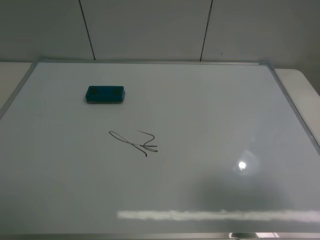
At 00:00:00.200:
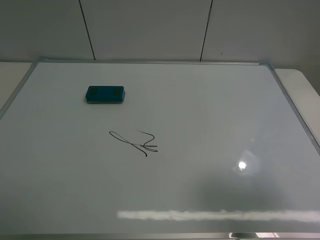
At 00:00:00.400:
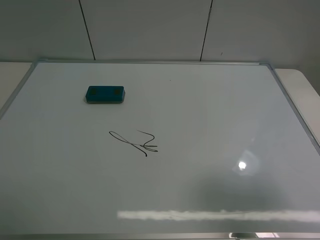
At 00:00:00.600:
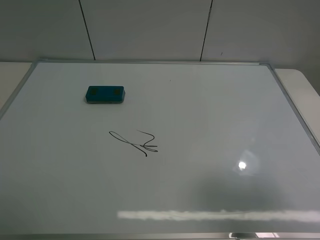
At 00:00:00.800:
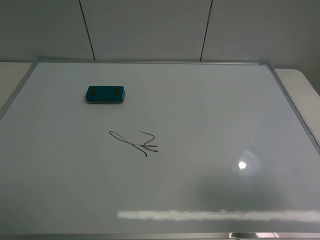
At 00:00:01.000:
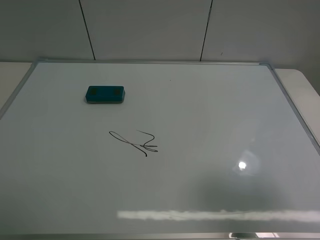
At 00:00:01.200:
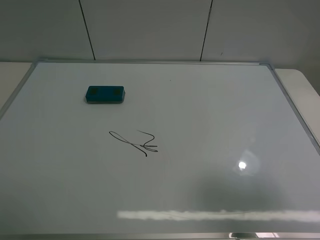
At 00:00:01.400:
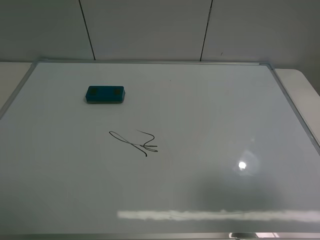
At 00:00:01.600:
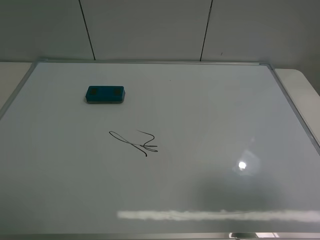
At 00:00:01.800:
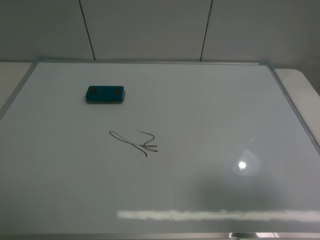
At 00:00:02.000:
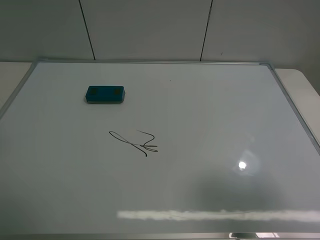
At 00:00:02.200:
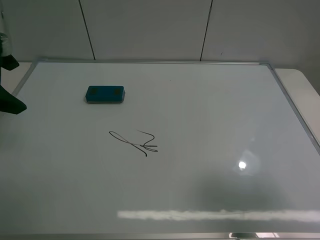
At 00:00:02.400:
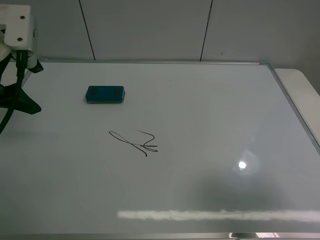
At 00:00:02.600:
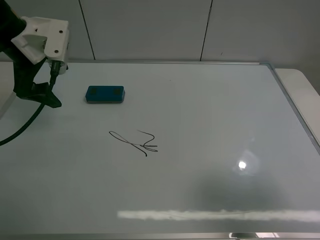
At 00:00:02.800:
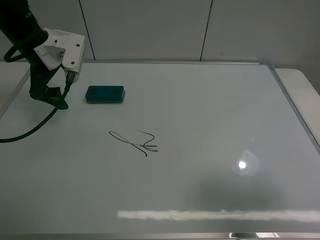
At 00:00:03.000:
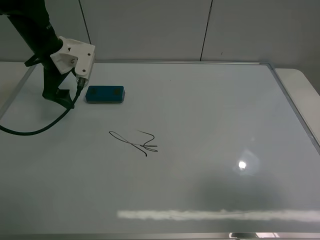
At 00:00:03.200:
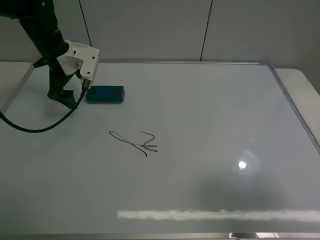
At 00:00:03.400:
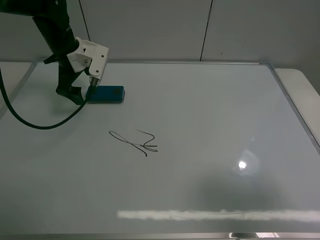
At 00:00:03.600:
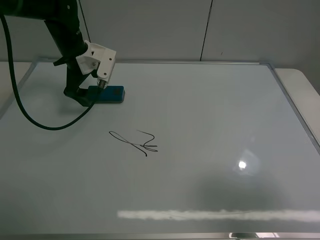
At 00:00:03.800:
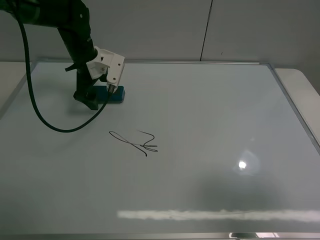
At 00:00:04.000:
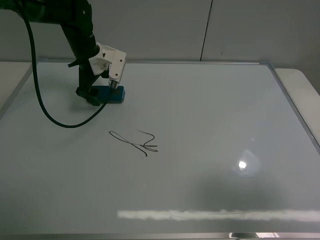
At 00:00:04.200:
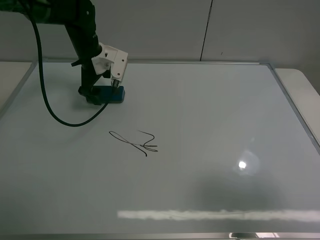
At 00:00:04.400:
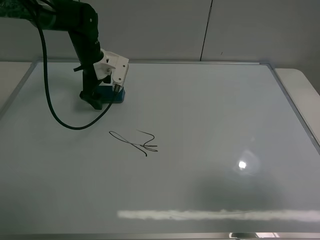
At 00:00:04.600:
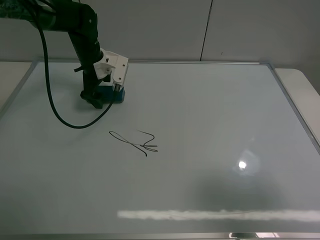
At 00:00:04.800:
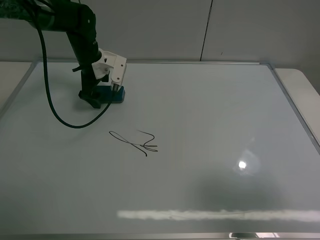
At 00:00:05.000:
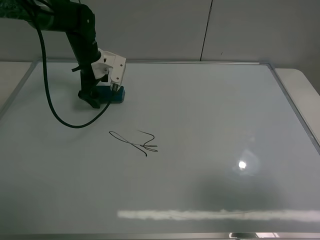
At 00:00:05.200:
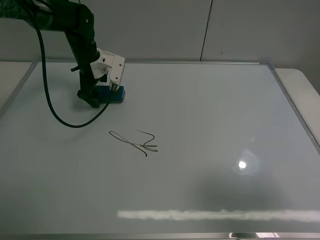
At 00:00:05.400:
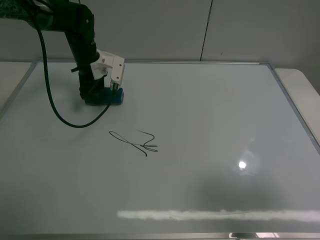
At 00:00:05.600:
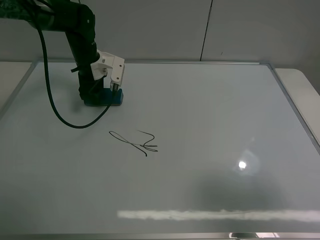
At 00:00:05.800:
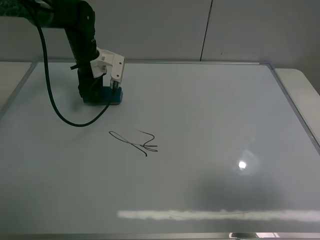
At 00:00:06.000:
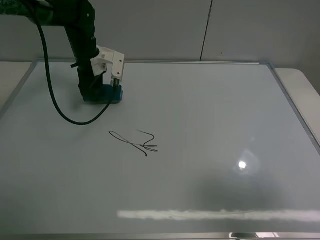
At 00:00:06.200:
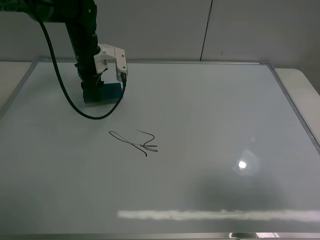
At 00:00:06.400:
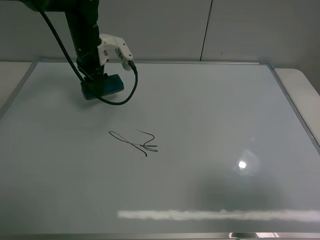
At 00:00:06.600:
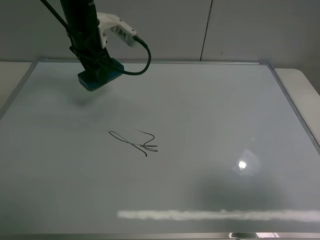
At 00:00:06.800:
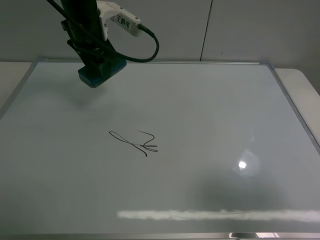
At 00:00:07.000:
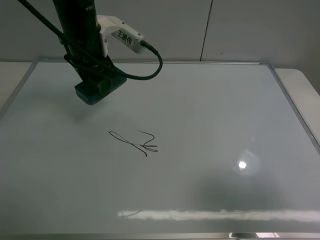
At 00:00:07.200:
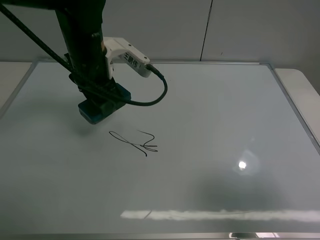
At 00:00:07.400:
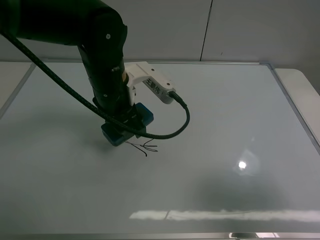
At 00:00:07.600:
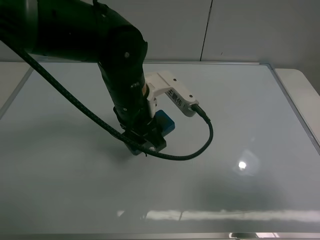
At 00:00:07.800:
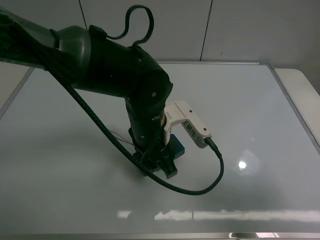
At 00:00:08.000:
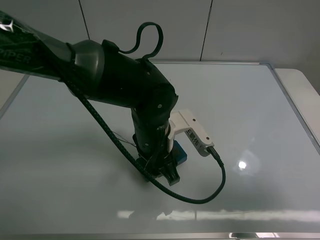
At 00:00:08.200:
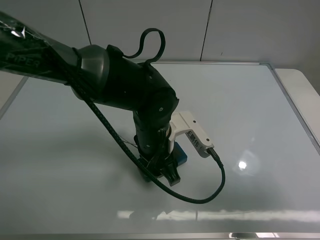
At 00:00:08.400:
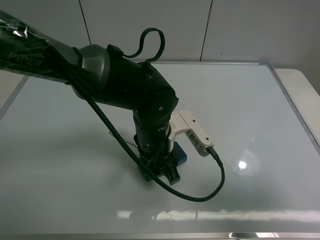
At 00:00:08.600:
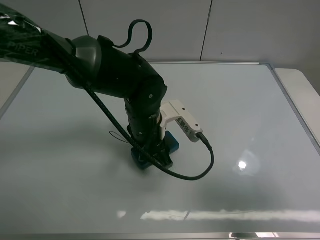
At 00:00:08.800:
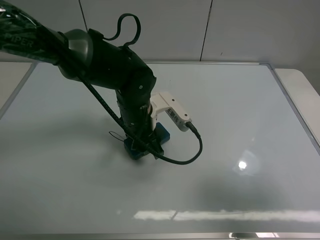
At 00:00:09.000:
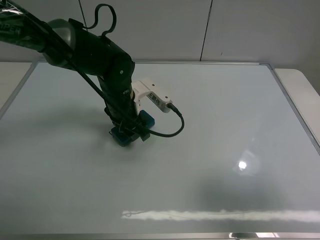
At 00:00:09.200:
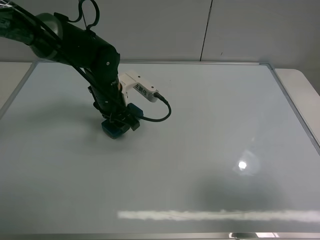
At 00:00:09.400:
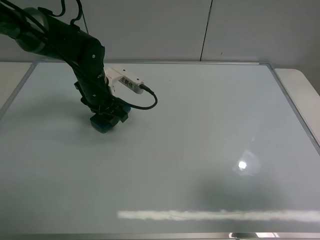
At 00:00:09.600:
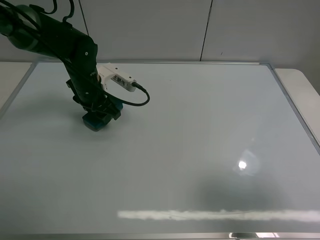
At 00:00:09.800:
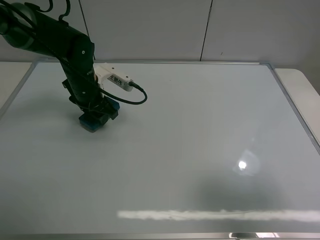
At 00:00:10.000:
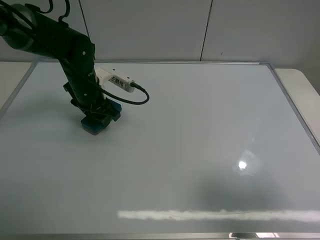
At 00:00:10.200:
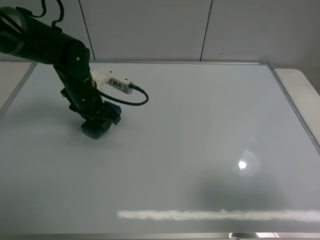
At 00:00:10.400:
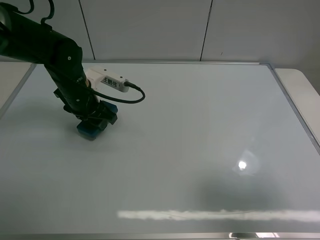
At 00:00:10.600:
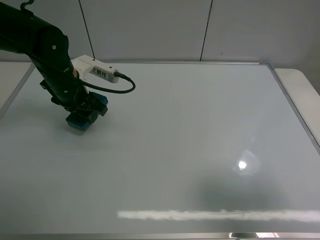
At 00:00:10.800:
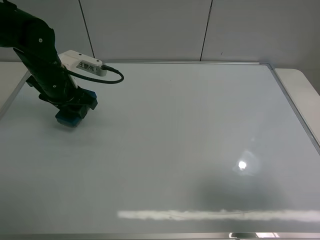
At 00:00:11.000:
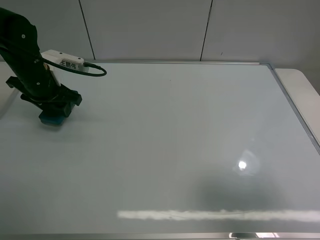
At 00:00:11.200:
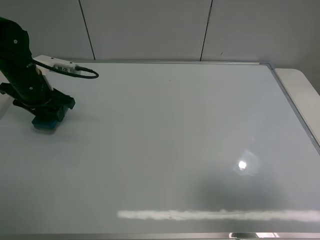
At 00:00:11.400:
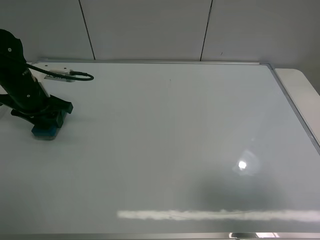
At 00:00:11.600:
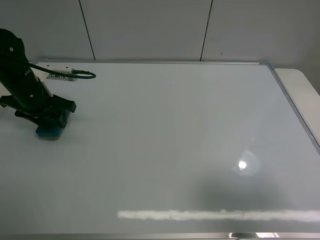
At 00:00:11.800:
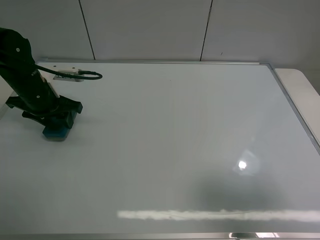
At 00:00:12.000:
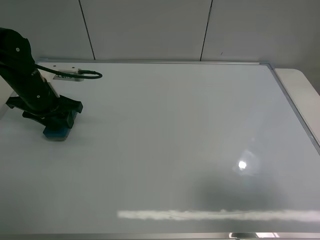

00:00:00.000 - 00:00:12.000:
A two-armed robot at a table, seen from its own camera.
Task of the whole recording: use the left claw to pick up the whiteboard eraser, wipe the notes on the whiteboard clean, and then put them back in place.
Step, 00:00:00.000 - 00:00:05.400: Grasp the eraser with the left gripper.
Step, 00:00:05.600 - 00:00:10.000: Grasp the eraser and wipe the blackboard with the left gripper.
00:00:01.600 - 00:00:03.000: The left gripper is displaced forward by some 35 cm.
00:00:03.000 - 00:00:04.400: The left gripper heads forward, to the right and downward, covering approximately 10 cm.
00:00:04.400 - 00:00:06.000: The left gripper closes.
00:00:06.000 - 00:00:07.600: The left gripper shifts approximately 25 cm backward and to the right.
00:00:07.600 - 00:00:09.000: The left gripper moves forward, downward and to the left, some 10 cm.
00:00:09.000 - 00:00:10.400: The left gripper travels to the left by roughly 10 cm.
00:00:10.400 - 00:00:12.000: The left gripper is displaced to the left by approximately 10 cm.

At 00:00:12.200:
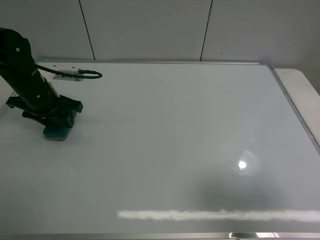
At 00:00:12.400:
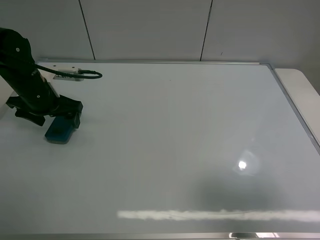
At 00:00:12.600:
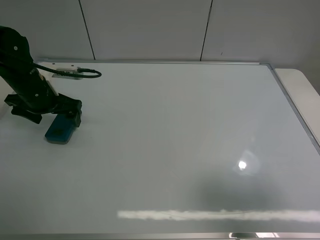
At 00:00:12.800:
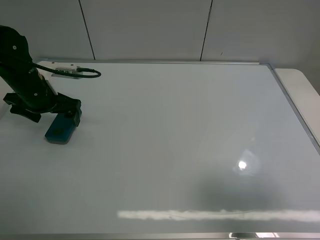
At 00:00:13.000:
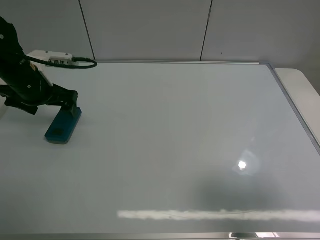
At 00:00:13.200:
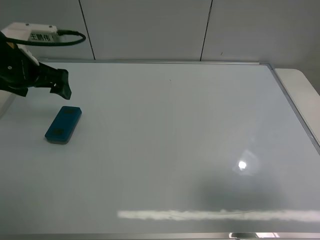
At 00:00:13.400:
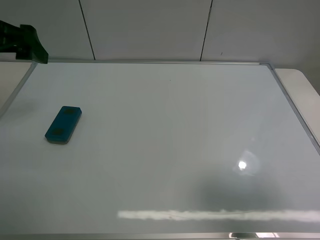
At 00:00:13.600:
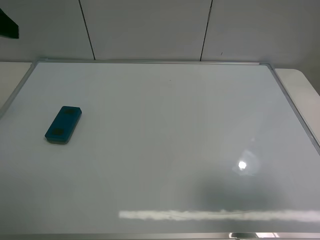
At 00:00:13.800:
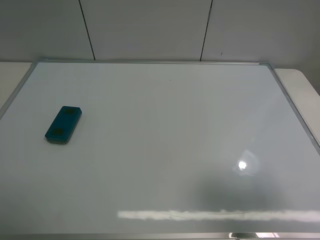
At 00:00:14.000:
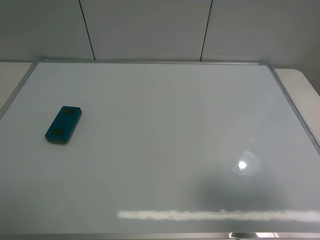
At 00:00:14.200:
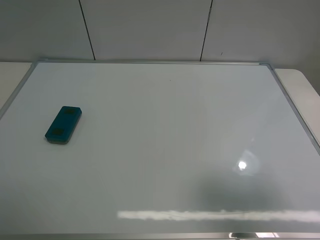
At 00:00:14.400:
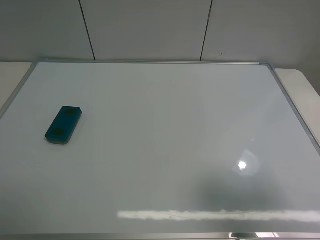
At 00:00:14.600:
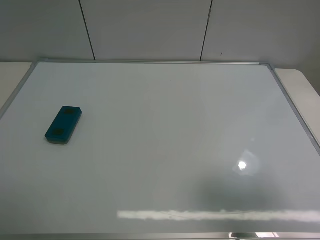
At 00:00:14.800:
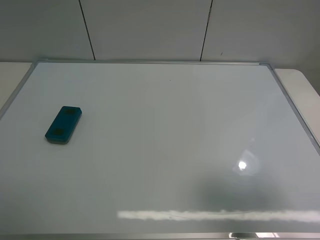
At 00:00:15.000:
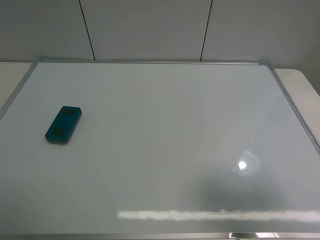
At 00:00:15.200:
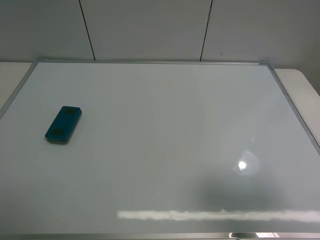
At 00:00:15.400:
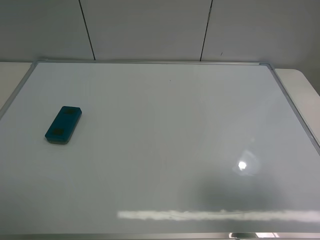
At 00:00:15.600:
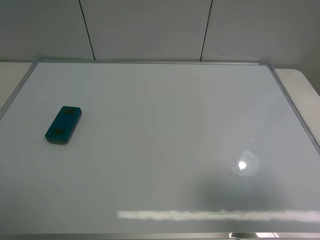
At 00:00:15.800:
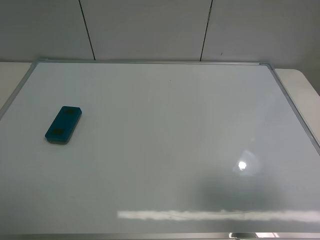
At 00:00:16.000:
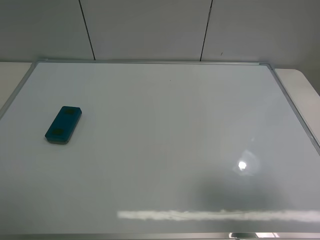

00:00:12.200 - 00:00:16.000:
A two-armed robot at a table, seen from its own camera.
Task of the whole recording: use the left claw to pick up the whiteboard eraser, wipe the notes on the whiteboard clean, and then put them back in place.
00:00:12.200 - 00:00:13.400: The left gripper travels upward and backward by approximately 20 cm, and opens its fingers.
00:00:13.400 - 00:00:14.800: The left gripper goes about 25 cm backward.
